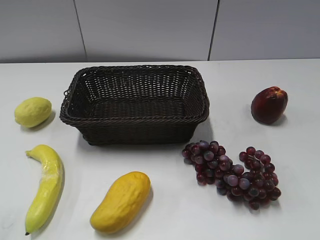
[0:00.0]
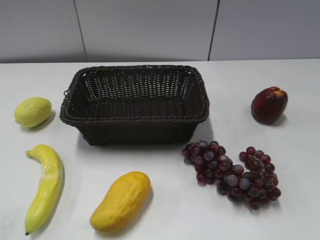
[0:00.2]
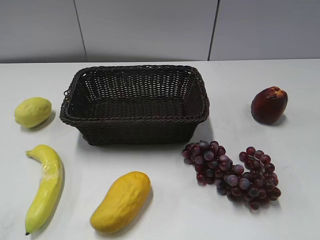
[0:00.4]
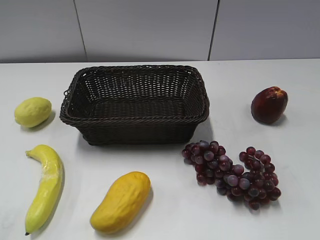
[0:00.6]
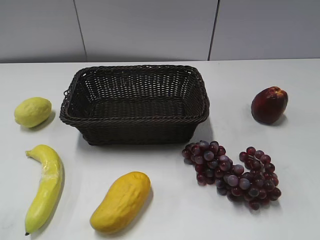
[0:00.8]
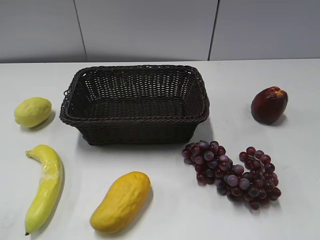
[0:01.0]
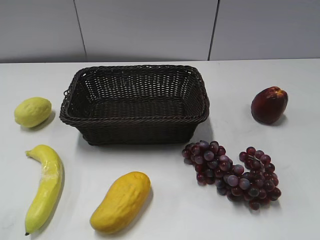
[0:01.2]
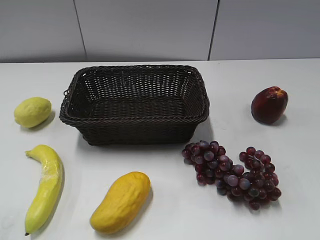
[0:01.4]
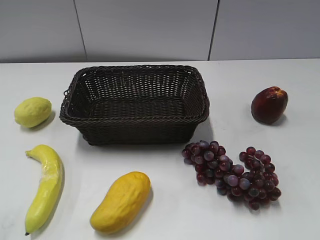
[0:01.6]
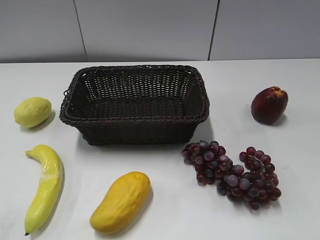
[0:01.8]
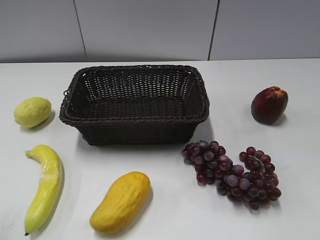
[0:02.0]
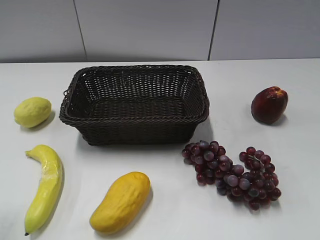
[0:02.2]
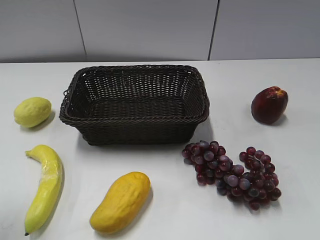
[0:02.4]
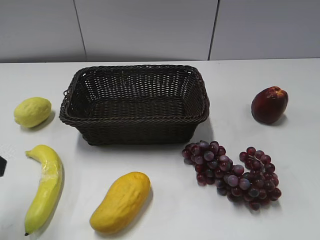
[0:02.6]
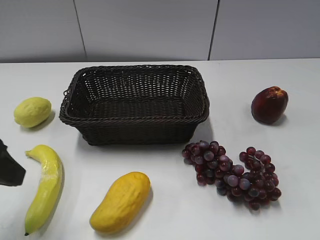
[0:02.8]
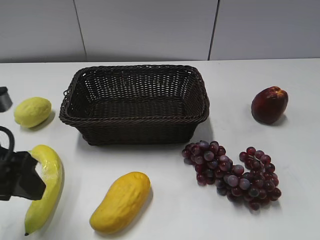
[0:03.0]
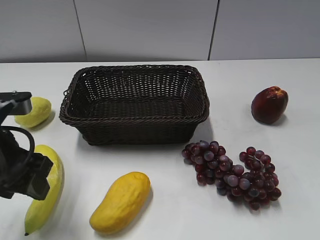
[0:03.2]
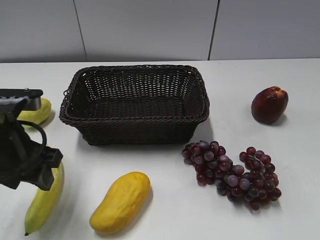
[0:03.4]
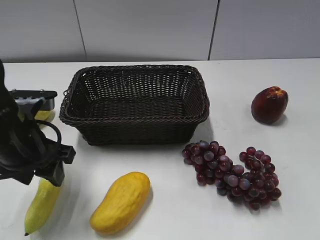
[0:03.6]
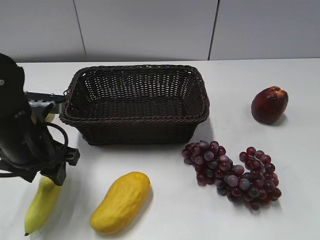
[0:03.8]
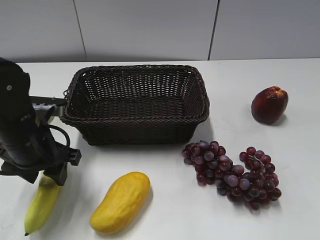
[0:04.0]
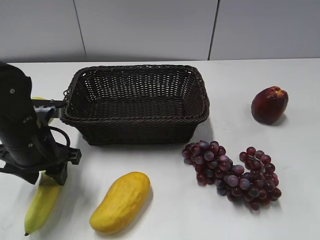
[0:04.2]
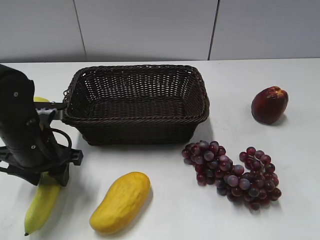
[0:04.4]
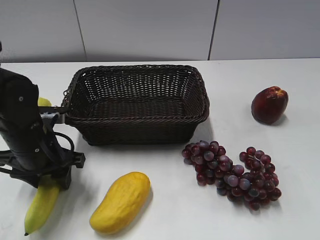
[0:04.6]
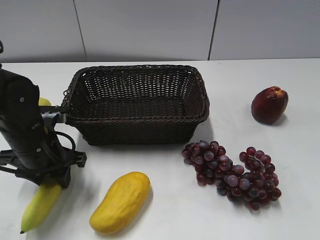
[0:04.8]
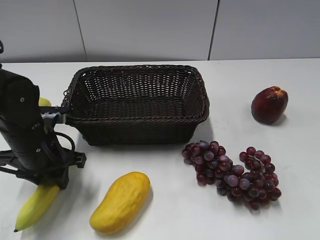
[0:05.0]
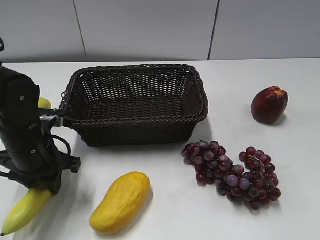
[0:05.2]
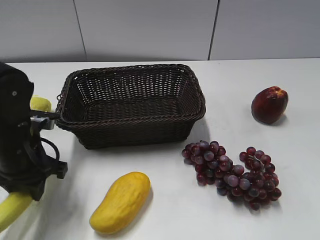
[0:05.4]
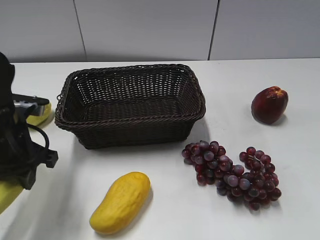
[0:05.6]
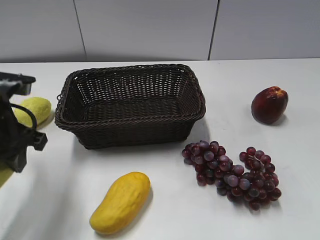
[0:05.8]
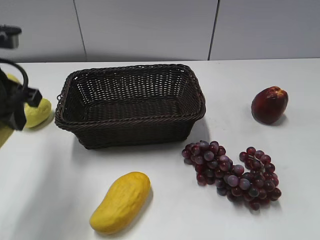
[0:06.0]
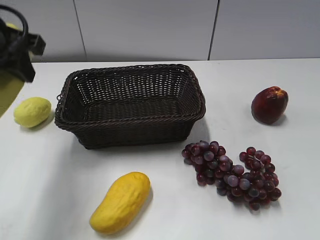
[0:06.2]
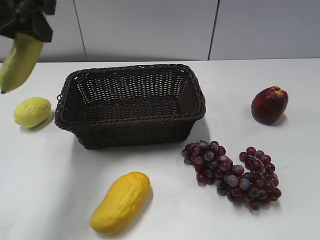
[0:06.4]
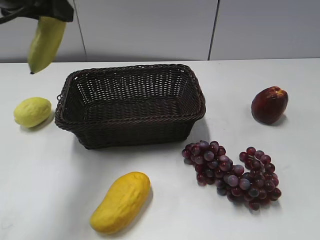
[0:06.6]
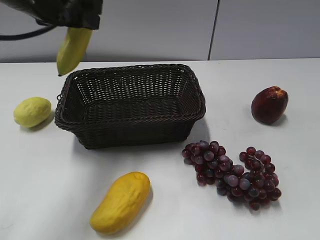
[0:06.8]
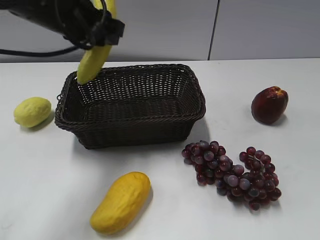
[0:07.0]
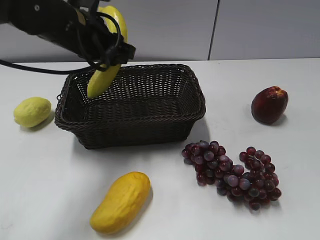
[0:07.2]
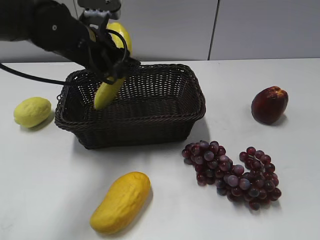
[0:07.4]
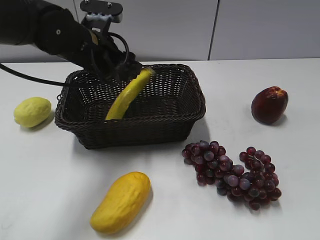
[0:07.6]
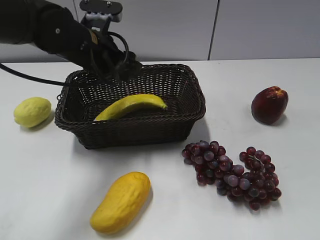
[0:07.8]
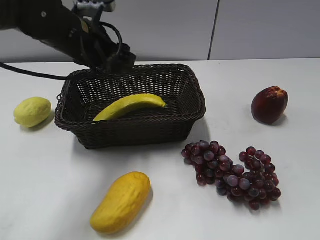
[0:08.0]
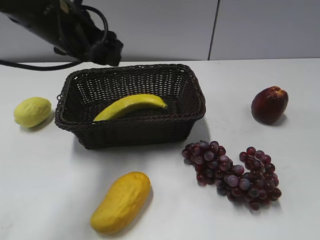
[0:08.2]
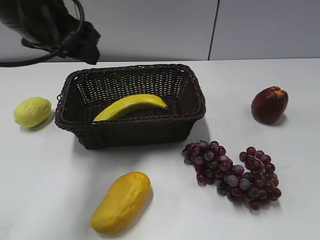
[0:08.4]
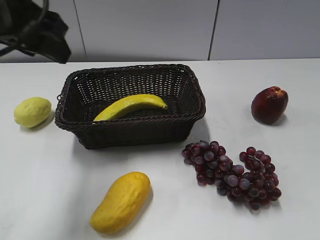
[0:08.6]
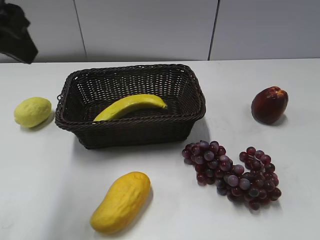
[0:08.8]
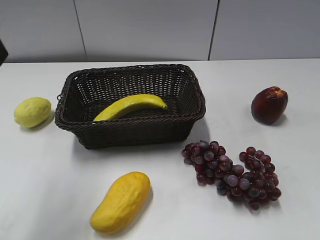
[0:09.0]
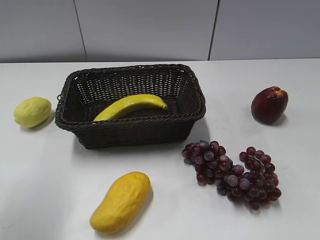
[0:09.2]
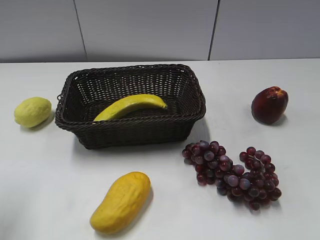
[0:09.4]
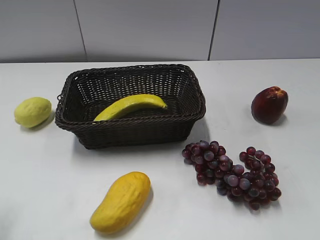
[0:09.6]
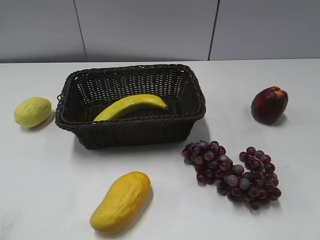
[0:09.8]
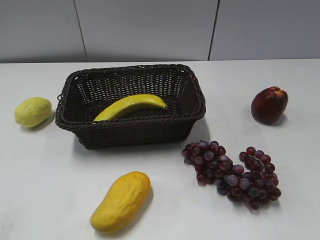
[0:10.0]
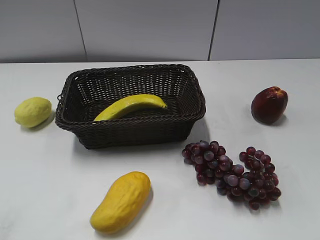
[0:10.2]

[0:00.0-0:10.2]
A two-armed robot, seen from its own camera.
Step, 2.6 to 4.6 s: Grasp the banana with left gripper.
Step, 4.8 to 7.6 s: Place the banana in the basket with left gripper.
1.4 to 3.0 s: The left gripper travels forward and to the right by some 20 cm, and opens.
3.0 to 4.4 s: The left gripper shifts some 10 cm downward and forward.
4.4 to 5.8 s: The left gripper travels upward by about 10 cm, and closes its fingers.
5.8 to 7.2 s: The left gripper travels forward and to the right by approximately 15 cm, and travels upward and back again, approximately 15 cm each way.
7.2 to 8.8 s: The left gripper travels backward, upward and to the left by roughly 20 cm, and opens.
8.8 to 10.2 s: The left gripper shifts some 25 cm backward and to the left.

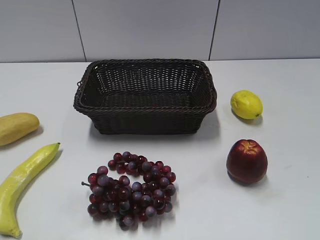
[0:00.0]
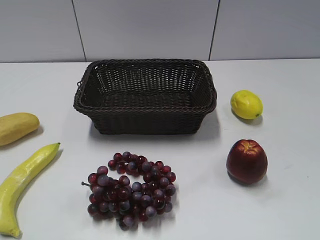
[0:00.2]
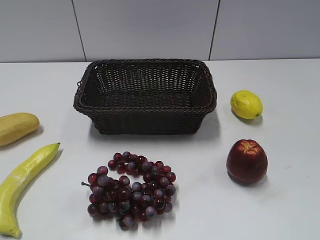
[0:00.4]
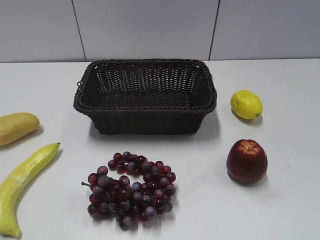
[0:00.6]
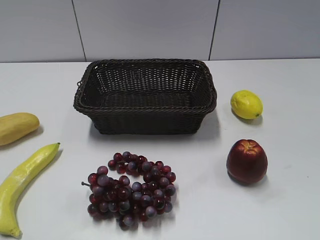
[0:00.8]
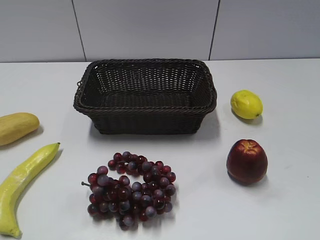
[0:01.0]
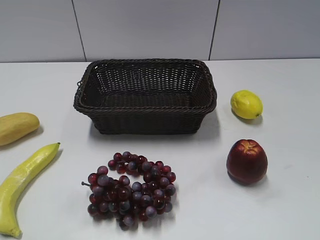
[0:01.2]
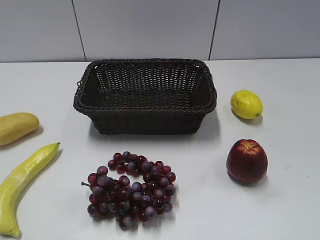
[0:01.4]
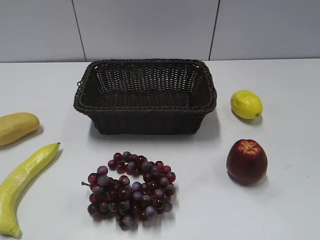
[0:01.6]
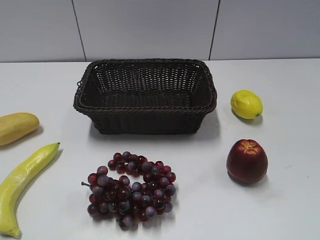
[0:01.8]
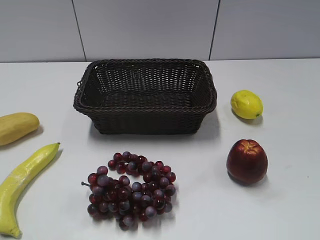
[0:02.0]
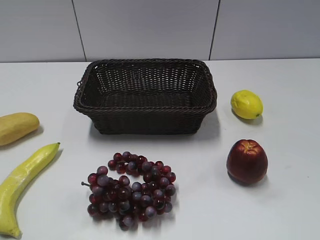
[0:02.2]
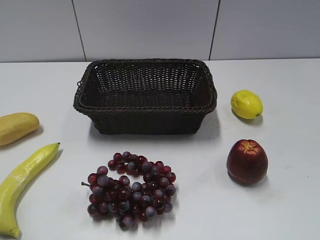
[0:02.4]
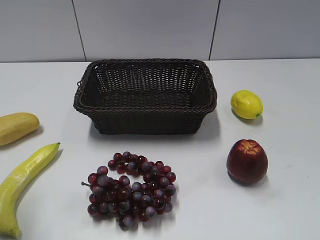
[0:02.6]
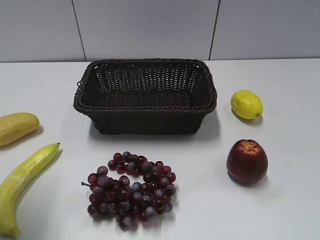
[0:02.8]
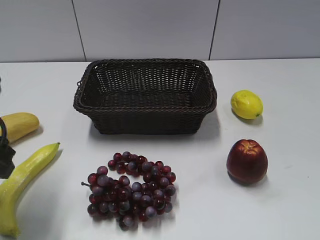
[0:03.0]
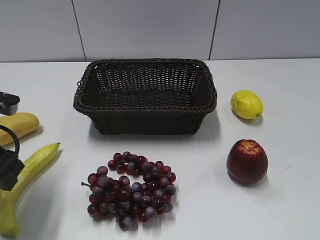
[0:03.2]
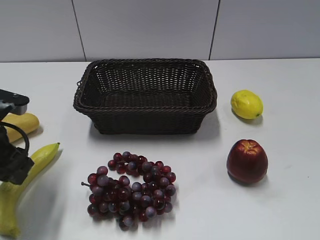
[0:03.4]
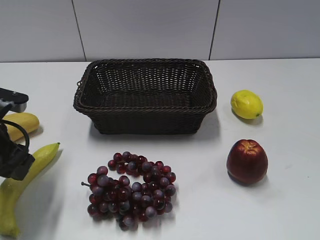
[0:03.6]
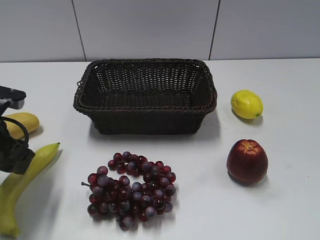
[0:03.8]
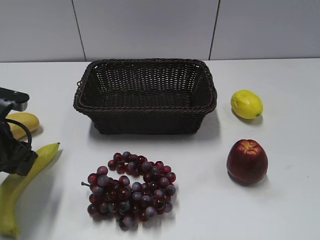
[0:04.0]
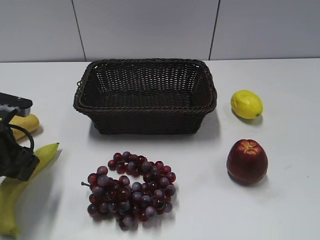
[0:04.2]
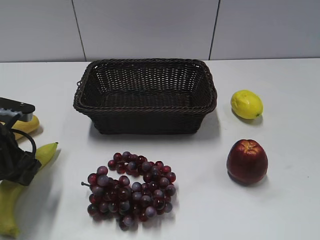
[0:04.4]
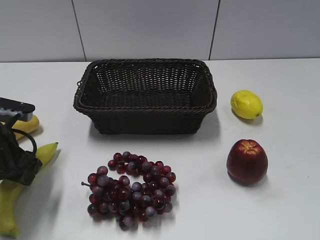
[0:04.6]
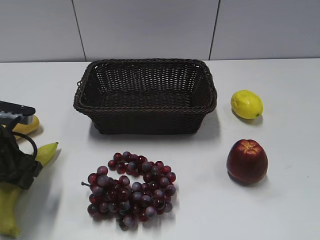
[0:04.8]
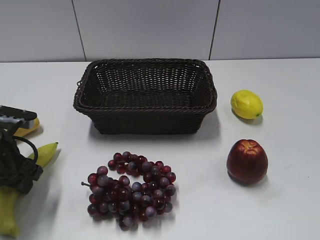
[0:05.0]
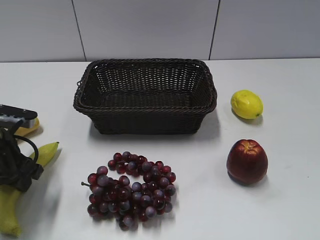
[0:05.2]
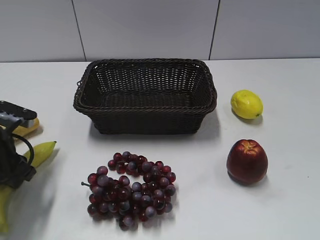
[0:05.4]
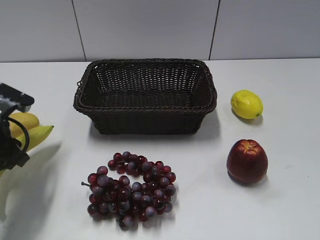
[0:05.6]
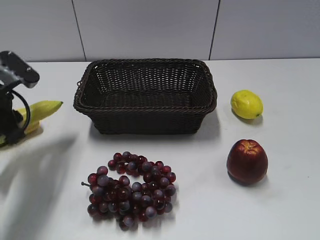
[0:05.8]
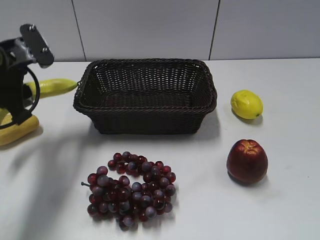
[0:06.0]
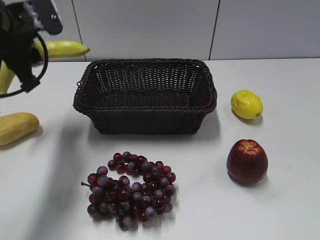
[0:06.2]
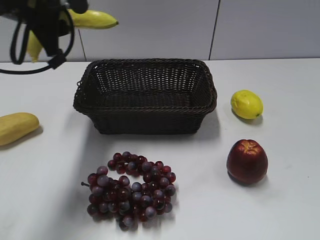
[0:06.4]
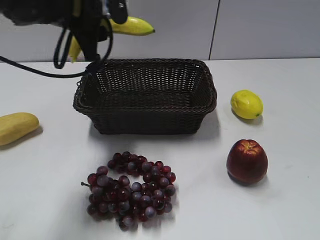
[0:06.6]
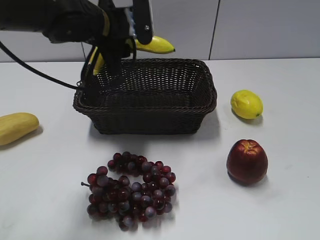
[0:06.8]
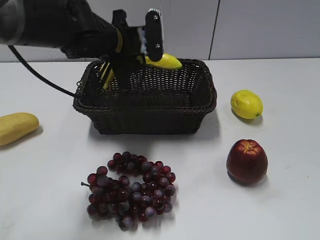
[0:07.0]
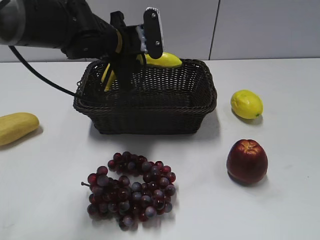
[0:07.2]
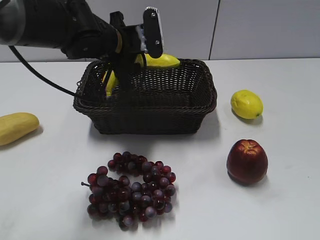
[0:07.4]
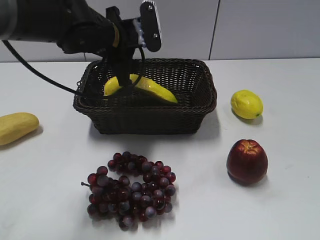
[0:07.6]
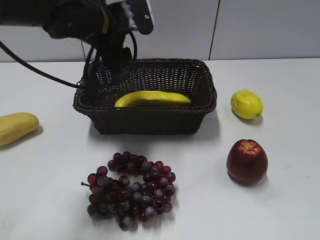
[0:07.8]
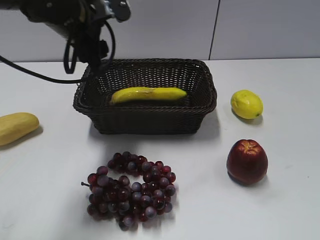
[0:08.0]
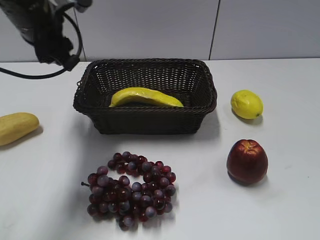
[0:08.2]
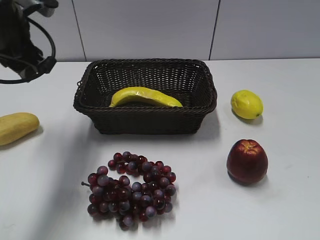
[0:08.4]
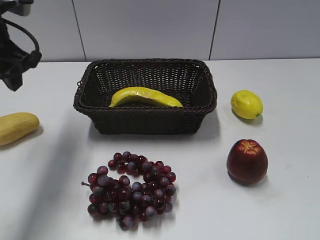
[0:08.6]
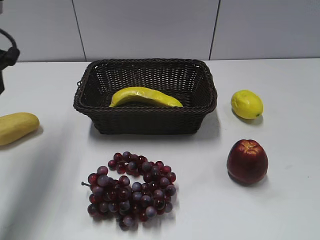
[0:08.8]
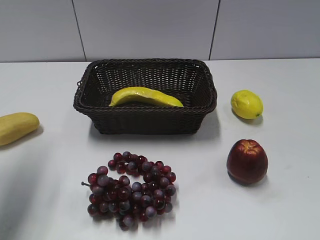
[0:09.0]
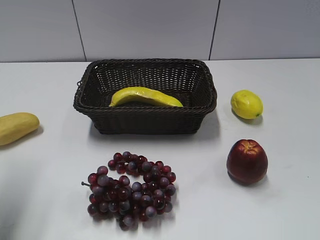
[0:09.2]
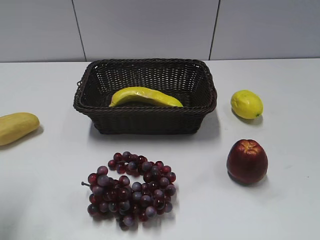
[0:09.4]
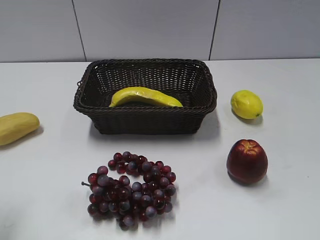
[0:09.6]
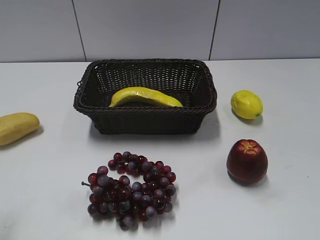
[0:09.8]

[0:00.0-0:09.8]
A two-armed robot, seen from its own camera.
Step, 3.0 to 5.0 s: Grasp the banana with left gripper.
Step, 5.4 to 7.6 s: Place the banana in the basket with left gripper.
1.4 to 2.8 s: The left gripper goes some 20 cm forward, and opens its fingers.
2.8 to 4.2 s: The left gripper heads downward and forward, covering roughly 10 cm.
4.2 to 5.6 s: The left gripper closes.
5.6 to 7.0 s: The left gripper shifts about 20 cm to the right and forward.
7.0 to 8.4 s: The left gripper is displaced to the left and upward by about 15 cm, and opens its fingers.
8.4 to 9.8 s: The left gripper shifts about 25 cm backward.

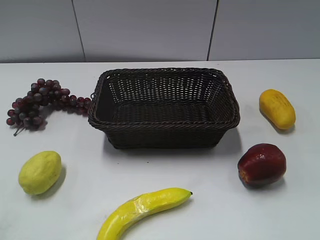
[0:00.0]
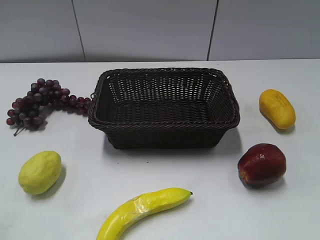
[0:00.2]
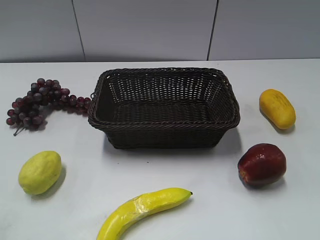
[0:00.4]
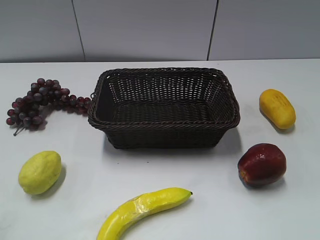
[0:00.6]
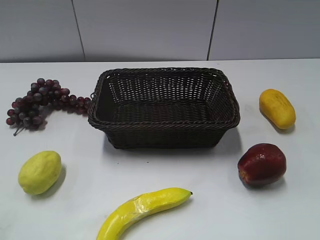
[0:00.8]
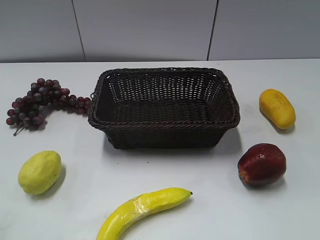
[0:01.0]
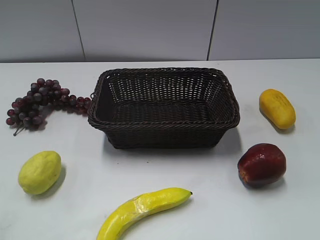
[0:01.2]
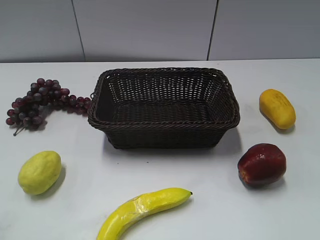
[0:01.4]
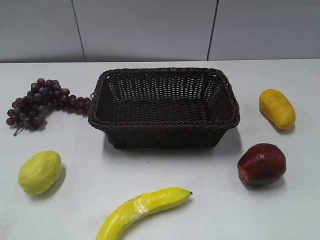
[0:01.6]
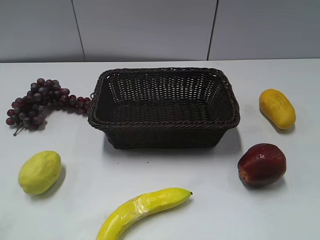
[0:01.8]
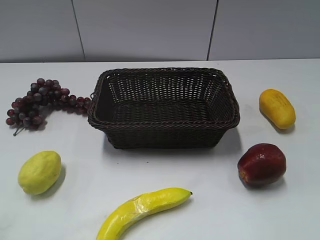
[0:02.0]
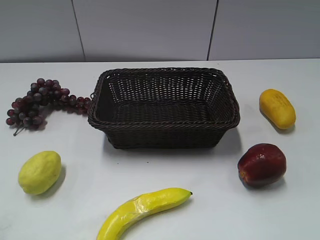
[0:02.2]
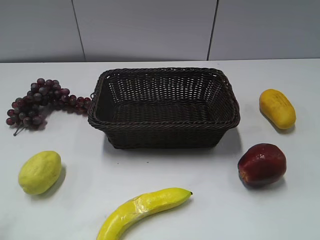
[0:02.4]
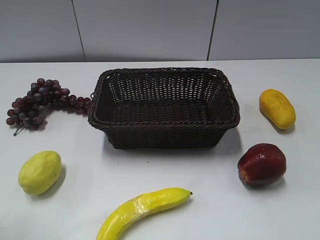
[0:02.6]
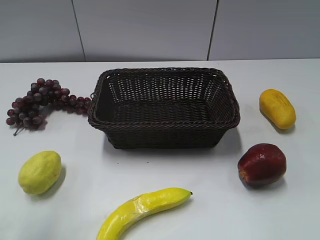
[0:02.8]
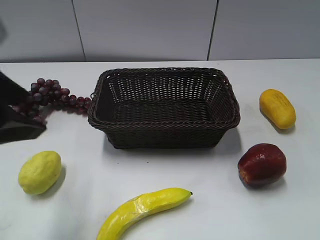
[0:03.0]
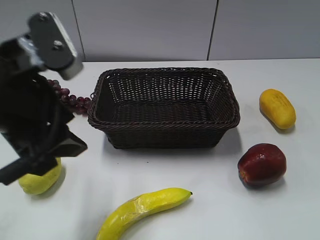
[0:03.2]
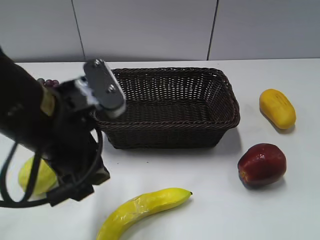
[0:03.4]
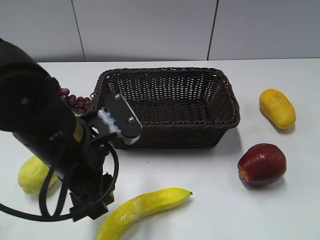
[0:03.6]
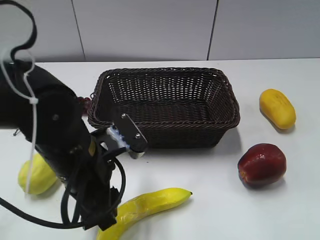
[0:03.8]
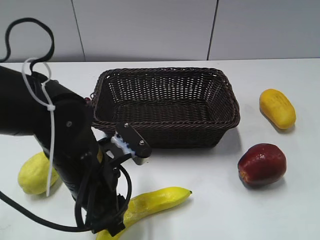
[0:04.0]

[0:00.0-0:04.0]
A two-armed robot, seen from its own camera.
2.6 to 4.0 s: The left gripper travels to the right, downward and forward by approximately 25 cm.
